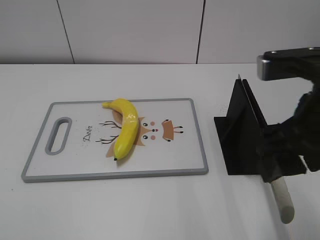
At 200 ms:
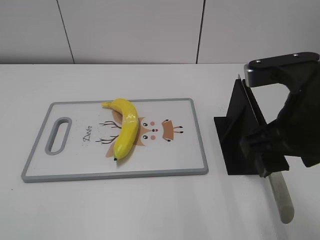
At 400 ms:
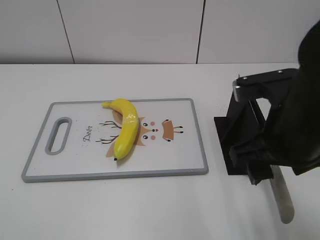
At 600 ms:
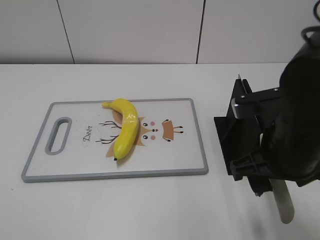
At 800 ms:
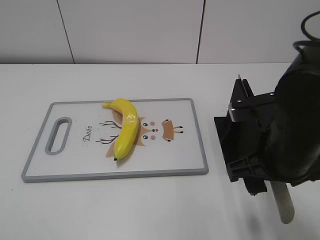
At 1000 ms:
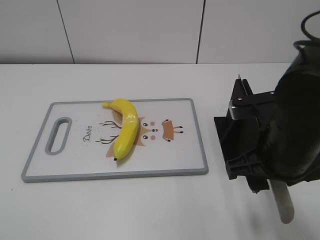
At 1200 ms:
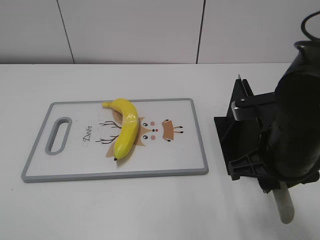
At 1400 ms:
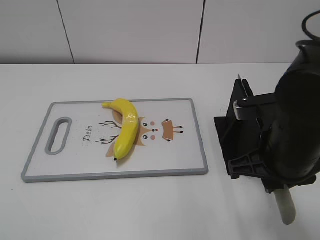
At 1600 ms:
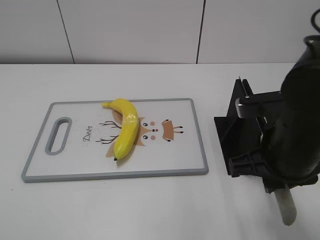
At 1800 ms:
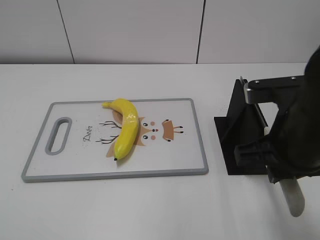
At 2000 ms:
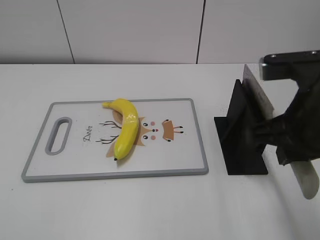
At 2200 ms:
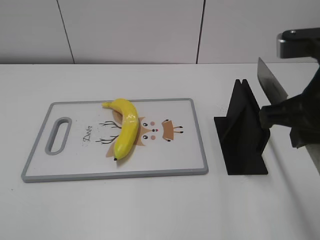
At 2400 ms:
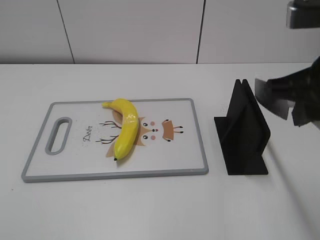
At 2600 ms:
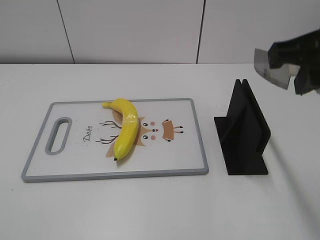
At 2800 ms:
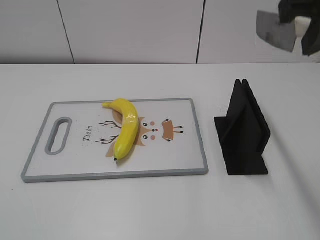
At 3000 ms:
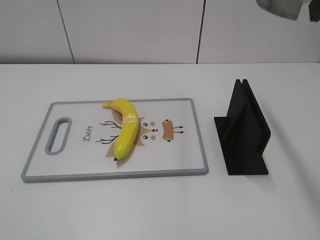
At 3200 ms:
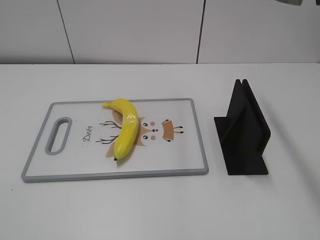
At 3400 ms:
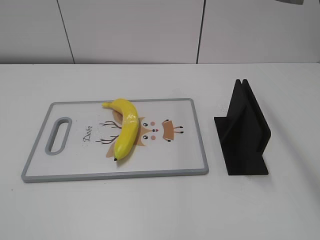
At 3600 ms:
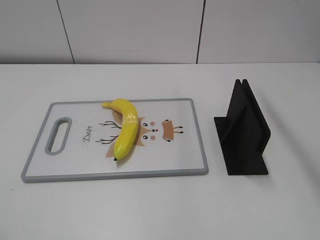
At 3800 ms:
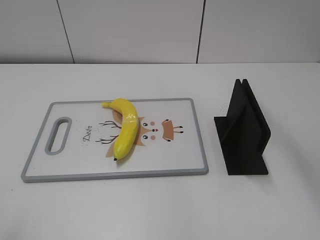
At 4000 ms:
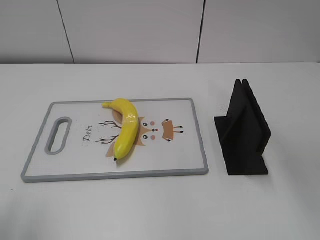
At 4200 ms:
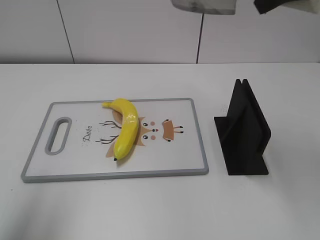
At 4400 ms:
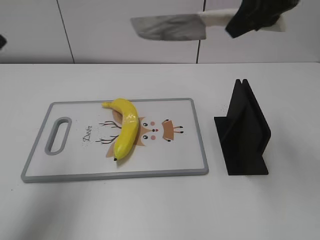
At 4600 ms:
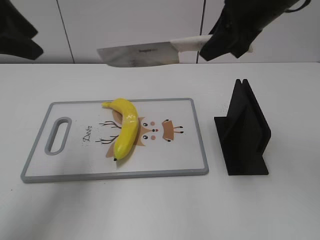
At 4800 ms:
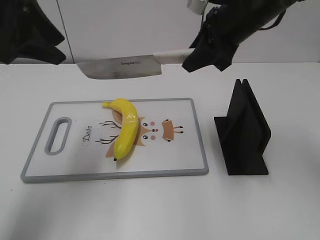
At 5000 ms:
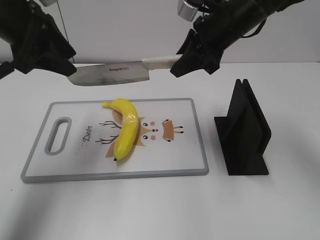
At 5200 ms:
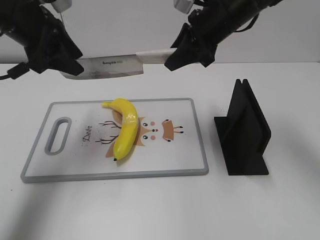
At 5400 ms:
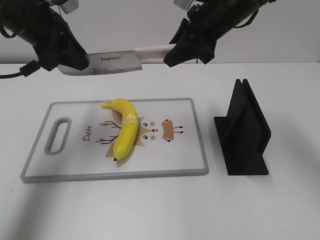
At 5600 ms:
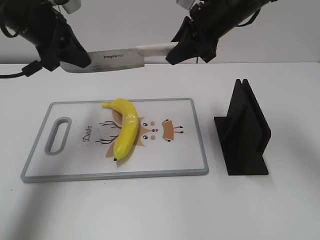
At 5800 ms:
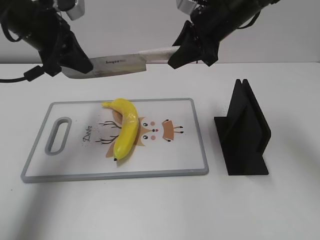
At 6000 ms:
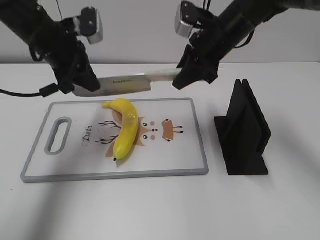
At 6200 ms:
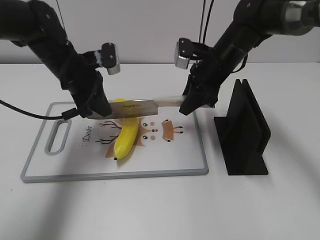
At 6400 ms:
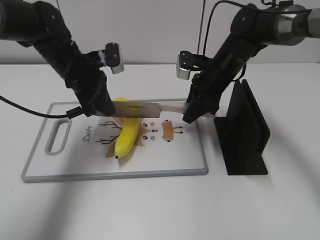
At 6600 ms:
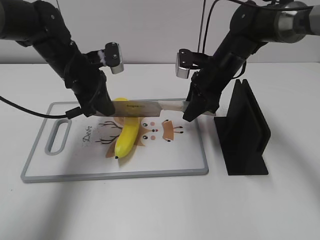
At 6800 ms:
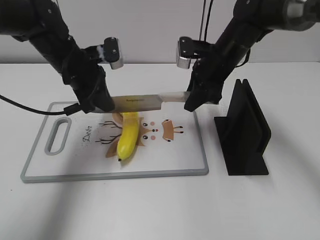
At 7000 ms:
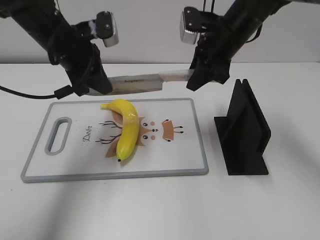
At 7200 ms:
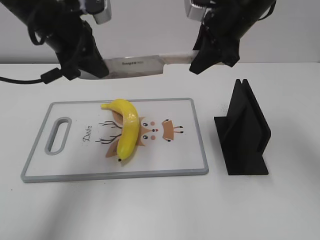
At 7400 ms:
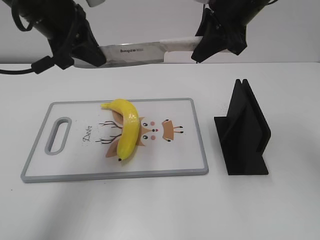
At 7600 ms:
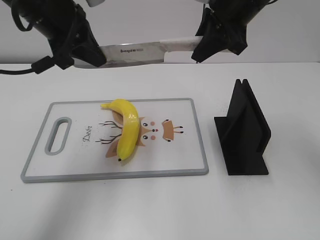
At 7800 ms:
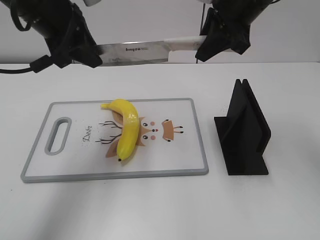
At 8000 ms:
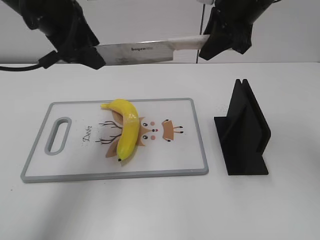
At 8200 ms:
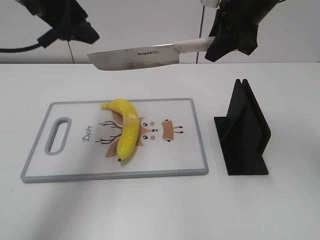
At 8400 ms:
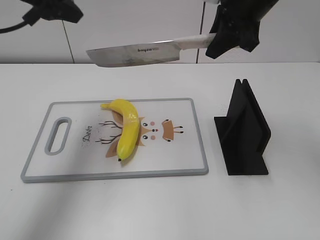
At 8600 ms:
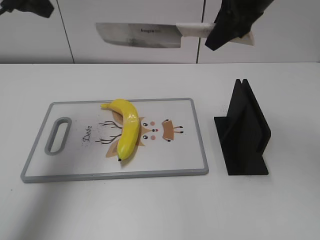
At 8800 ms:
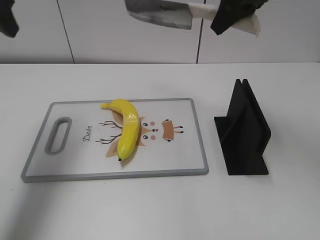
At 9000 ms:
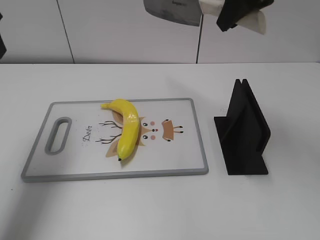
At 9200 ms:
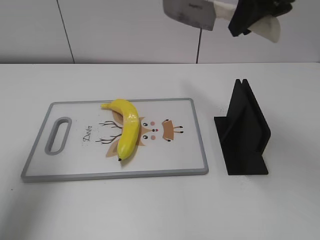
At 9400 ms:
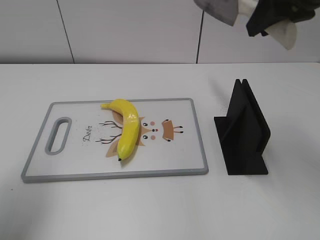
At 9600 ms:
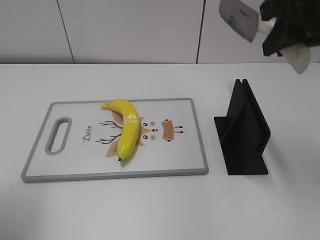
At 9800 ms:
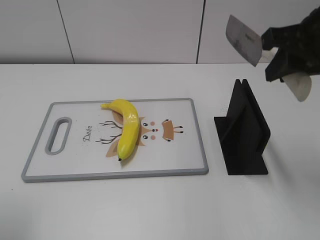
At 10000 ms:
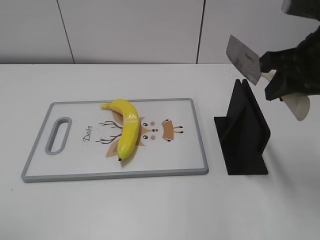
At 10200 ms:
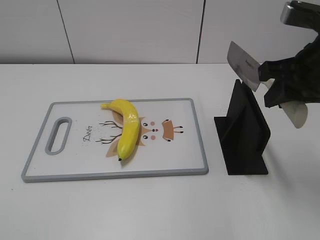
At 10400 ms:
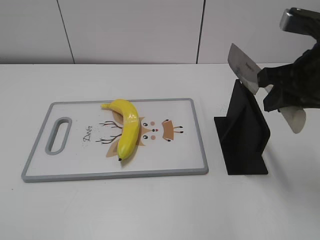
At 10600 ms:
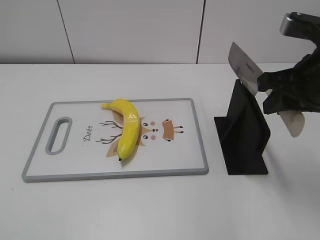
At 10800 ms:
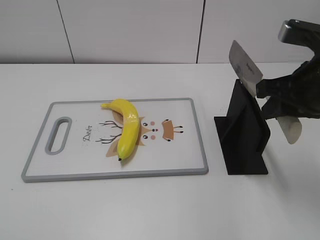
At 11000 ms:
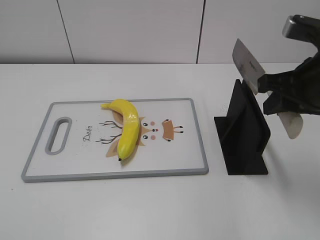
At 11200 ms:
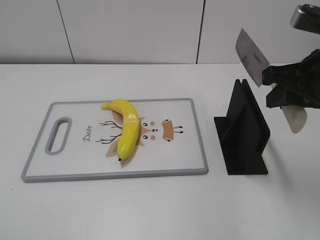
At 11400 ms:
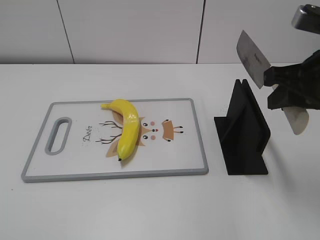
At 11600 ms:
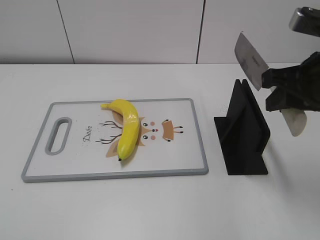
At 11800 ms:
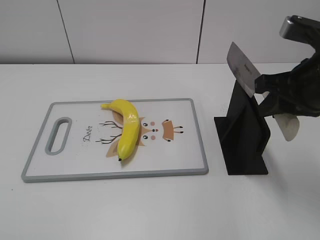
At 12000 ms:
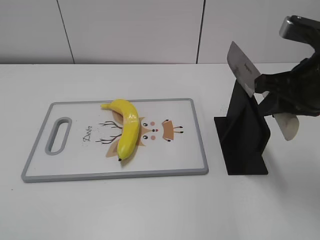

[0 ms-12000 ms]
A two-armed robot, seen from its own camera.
Task of the whole recording: cut plastic banana.
Step, 0 ms to 2600 ms: Grab the knife handle with your right hand.
Step, 2800 ms to 7600 ms: Lift the knife with your right hand.
Step, 7800 ms to 8800 ms: Cut the banana with your right hand.
Step, 9000 ms to 10600 ms: Lift the knife with your right hand.
0 ms to 1600 ms: The right gripper heads downward, covering approximately 10 cm, and closes its fingers.
1600 ms to 3000 ms: The right gripper shifts some 20 cm upward.
3000 ms to 4400 ms: The right gripper shifts roughly 15 cm forward and downward. Meanwhile the left gripper shifts about 25 cm forward and upward.
4400 ms to 6000 ms: The right gripper moves downward, forward and to the left, about 15 cm, while the left gripper travels forward, downward and to the right by approximately 20 cm, and closes its fingers.
6000 ms to 7600 ms: The grippers both shift upward by about 5 cm.
7600 ms to 9000 ms: The right gripper shifts about 5 cm upward. The left gripper travels to the left by some 10 cm, and opens its fingers.
9000 ms to 10400 ms: The right gripper moves backward, downward and to the right, some 15 cm; the left gripper is displaced backward by about 30 cm.
10400 ms to 12000 ms: The grippers make only small movements.

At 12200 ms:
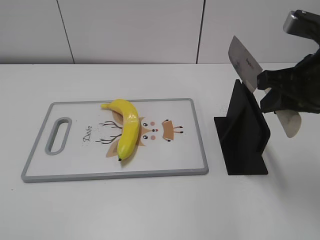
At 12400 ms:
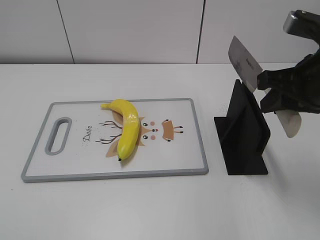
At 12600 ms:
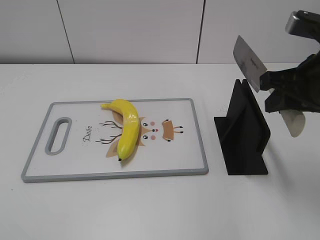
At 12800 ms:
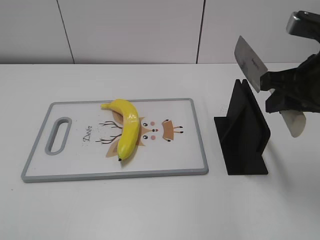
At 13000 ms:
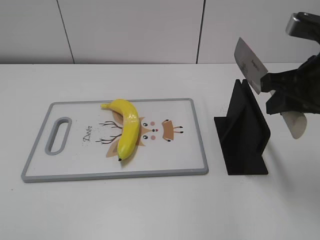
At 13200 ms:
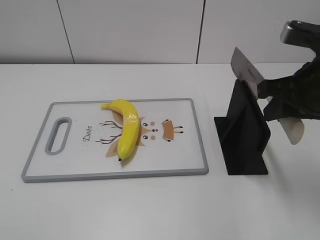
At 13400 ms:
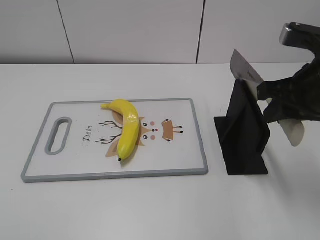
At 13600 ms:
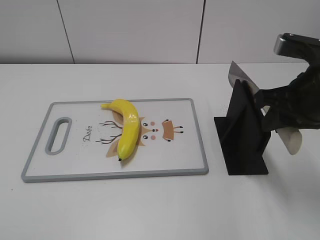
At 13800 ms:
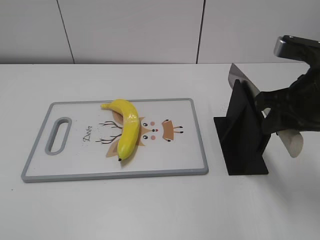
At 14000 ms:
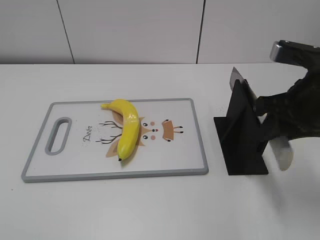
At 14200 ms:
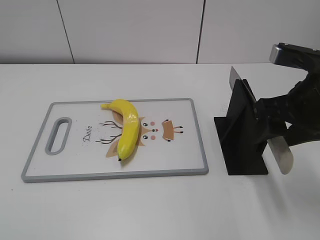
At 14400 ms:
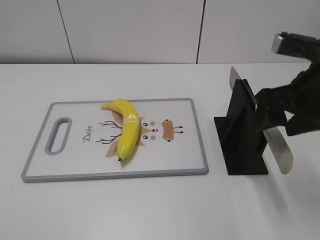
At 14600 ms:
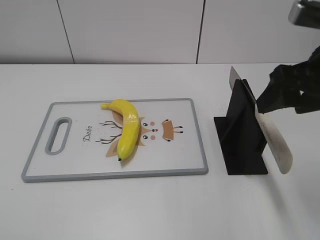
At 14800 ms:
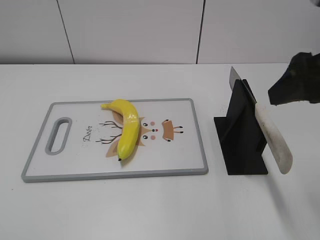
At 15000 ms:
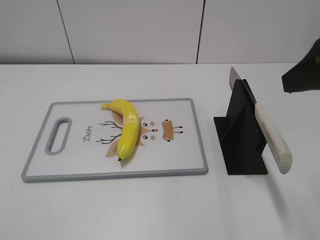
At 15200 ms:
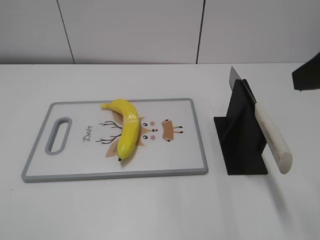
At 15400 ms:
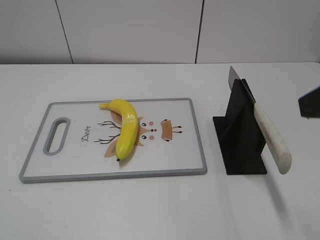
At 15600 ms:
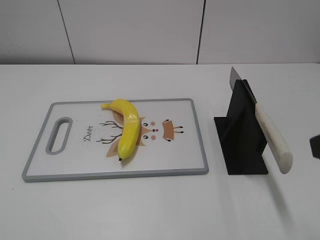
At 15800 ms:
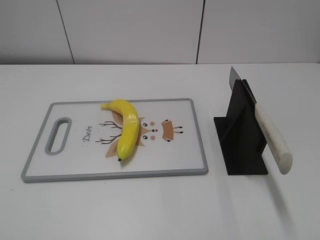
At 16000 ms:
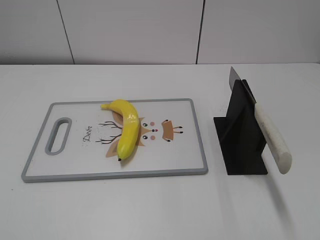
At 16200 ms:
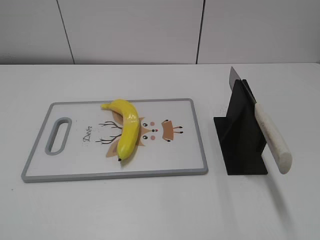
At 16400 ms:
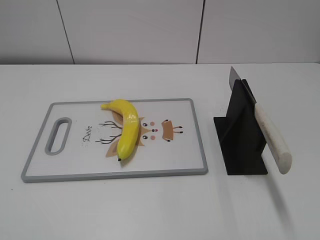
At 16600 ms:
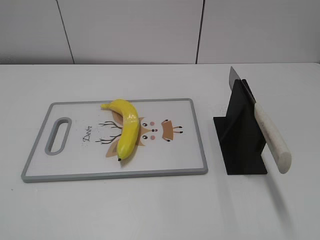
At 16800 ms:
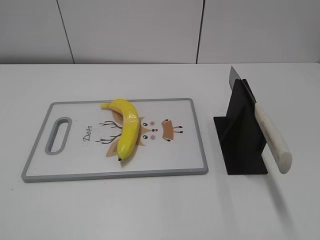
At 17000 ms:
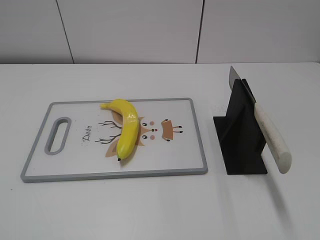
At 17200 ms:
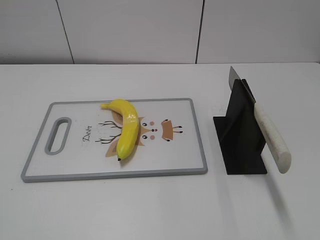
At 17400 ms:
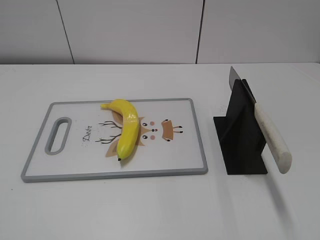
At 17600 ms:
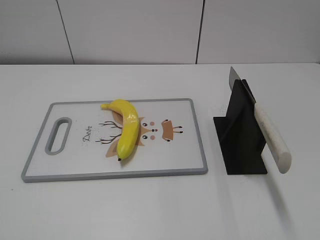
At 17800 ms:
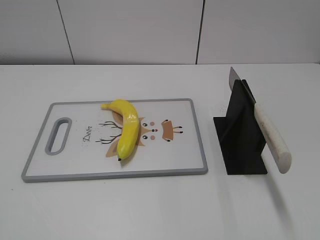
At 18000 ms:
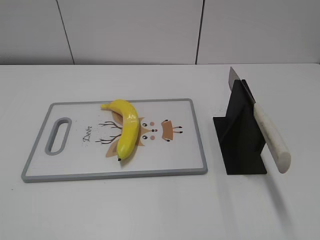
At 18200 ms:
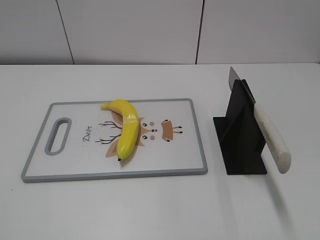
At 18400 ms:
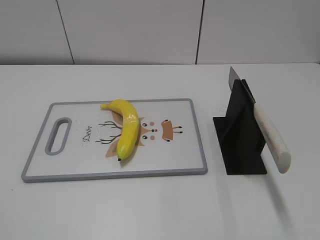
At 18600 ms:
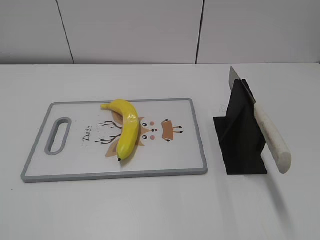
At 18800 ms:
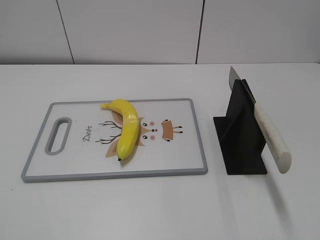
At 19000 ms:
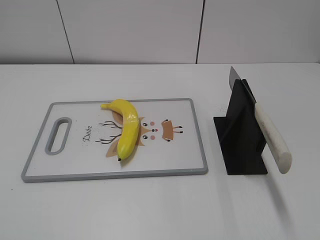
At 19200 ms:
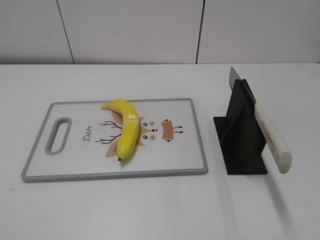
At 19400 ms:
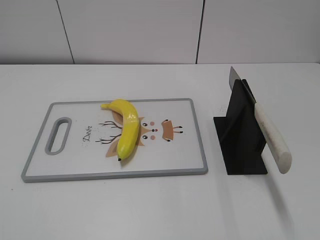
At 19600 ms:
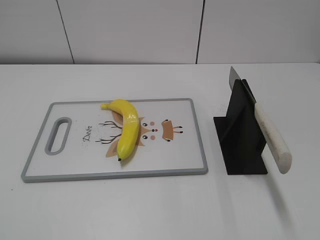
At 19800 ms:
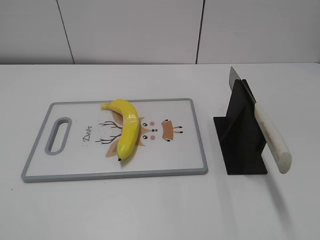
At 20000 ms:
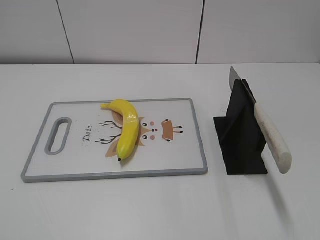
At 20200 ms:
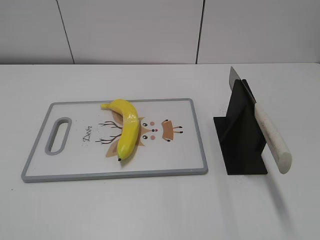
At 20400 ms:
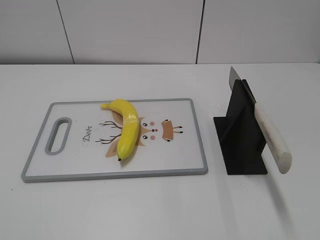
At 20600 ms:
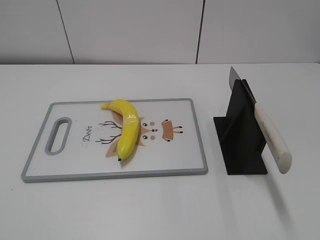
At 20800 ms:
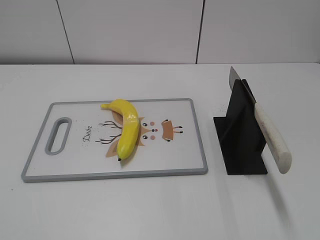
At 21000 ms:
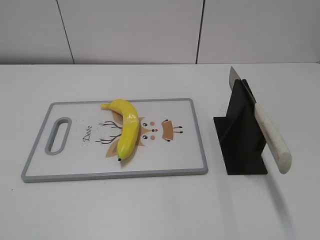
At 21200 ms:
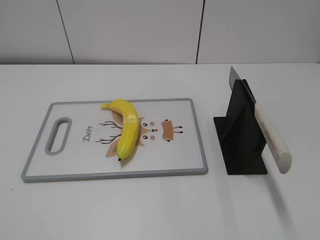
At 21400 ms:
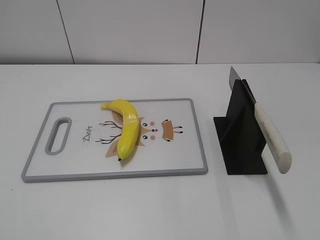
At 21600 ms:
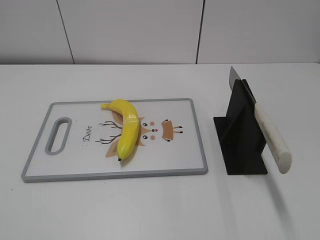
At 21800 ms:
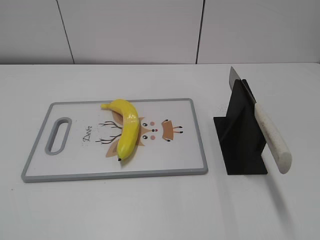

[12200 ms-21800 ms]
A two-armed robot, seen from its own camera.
Task of the whole recording: cut plastic banana.
Step, 12200 ms to 18800 ms: Place the knife on the storage rack with your right hand.
12200 ms to 13800 ms: The grippers make only small movements.
13800 ms to 15400 ms: The right gripper shifts roughly 15 cm upward and backward, and opens its fingers.
15400 ms to 17000 ms: The right gripper heads backward, covering approximately 10 cm.
18600 ms to 21800 ms: The two grippers keep their place.
